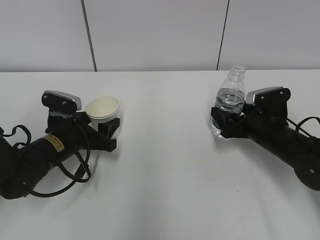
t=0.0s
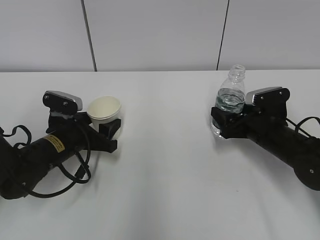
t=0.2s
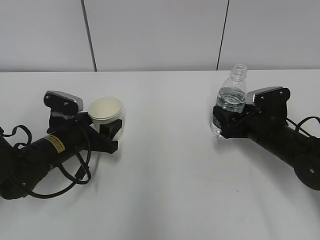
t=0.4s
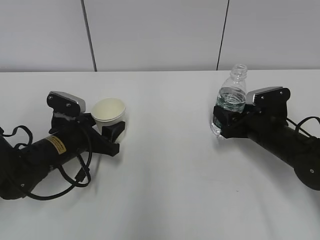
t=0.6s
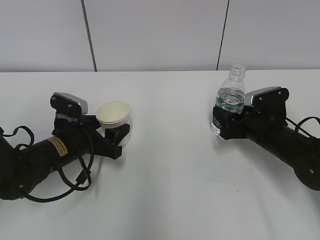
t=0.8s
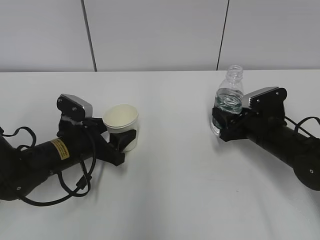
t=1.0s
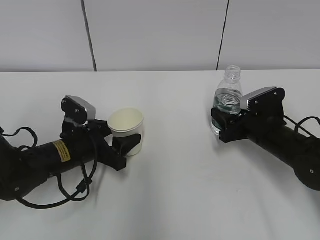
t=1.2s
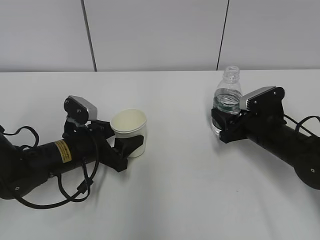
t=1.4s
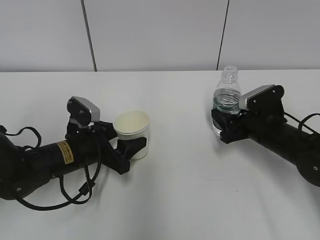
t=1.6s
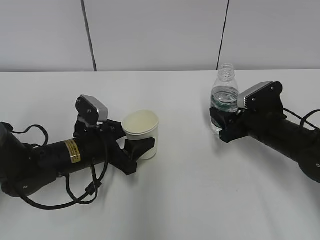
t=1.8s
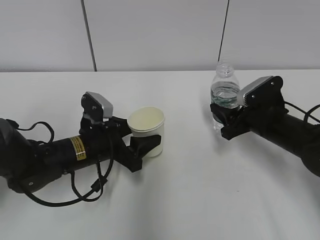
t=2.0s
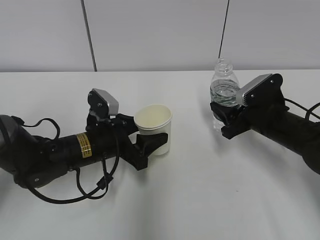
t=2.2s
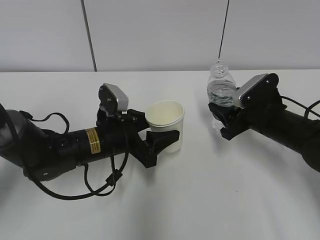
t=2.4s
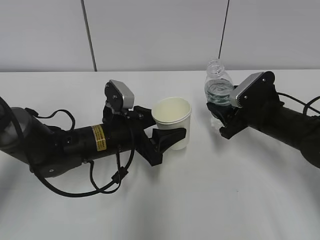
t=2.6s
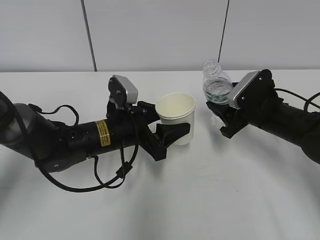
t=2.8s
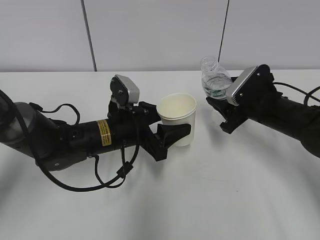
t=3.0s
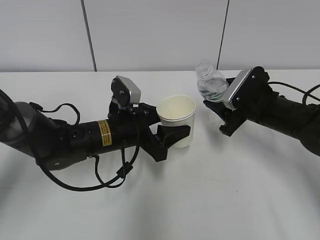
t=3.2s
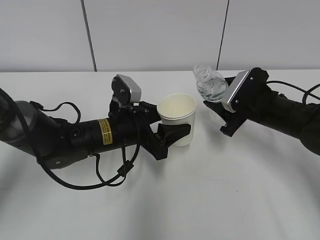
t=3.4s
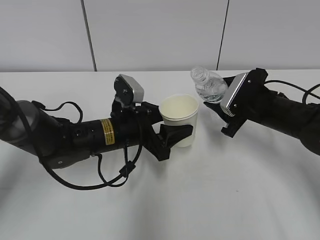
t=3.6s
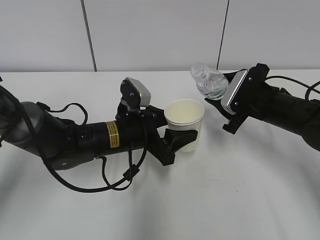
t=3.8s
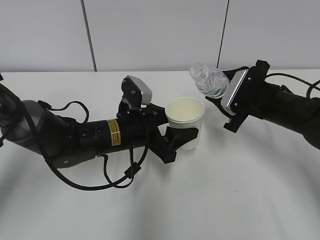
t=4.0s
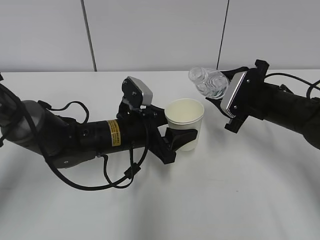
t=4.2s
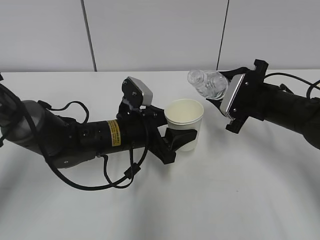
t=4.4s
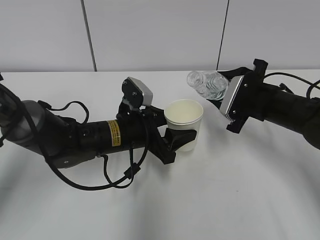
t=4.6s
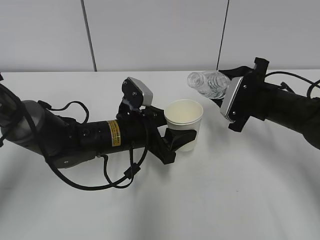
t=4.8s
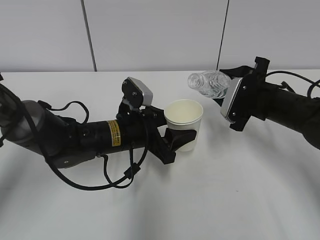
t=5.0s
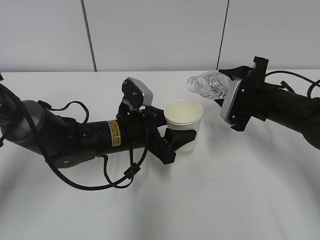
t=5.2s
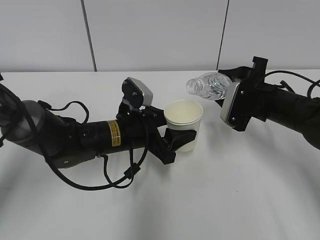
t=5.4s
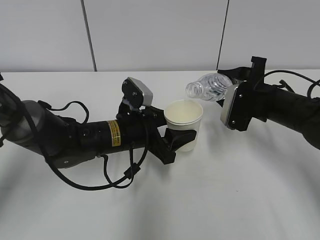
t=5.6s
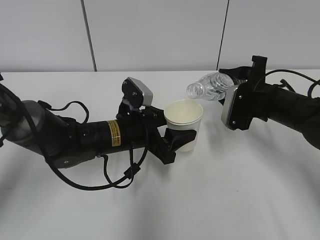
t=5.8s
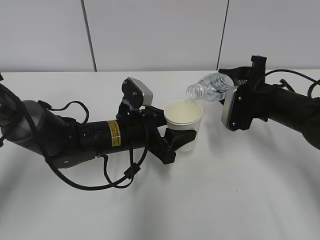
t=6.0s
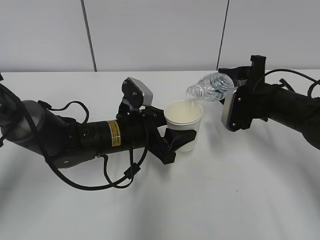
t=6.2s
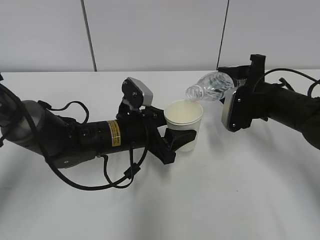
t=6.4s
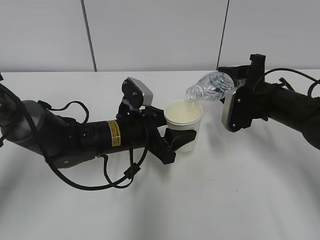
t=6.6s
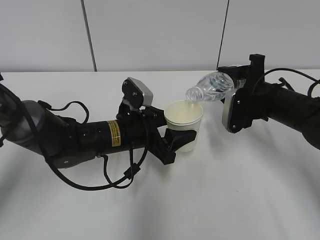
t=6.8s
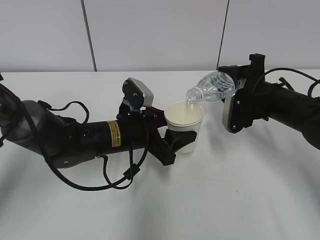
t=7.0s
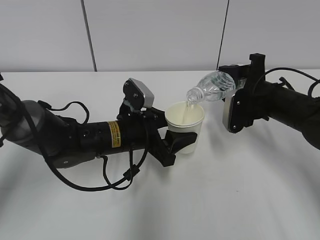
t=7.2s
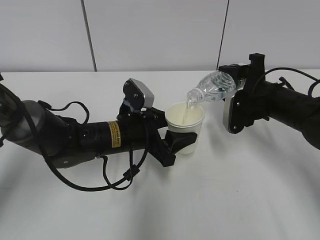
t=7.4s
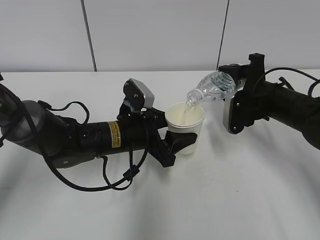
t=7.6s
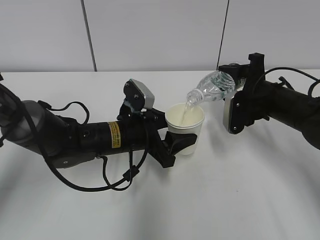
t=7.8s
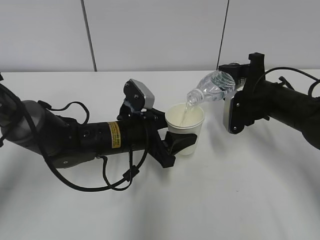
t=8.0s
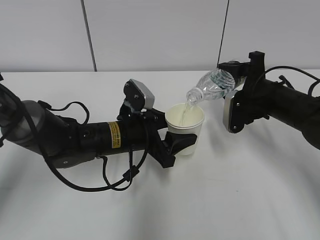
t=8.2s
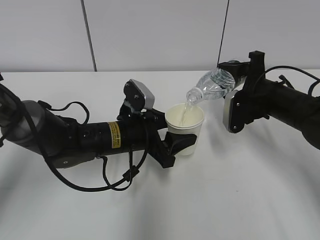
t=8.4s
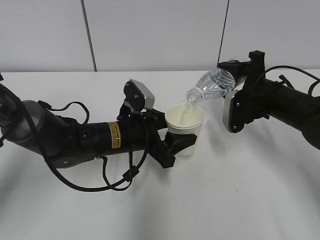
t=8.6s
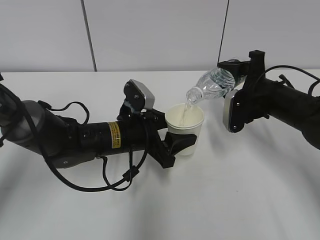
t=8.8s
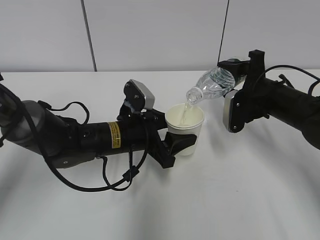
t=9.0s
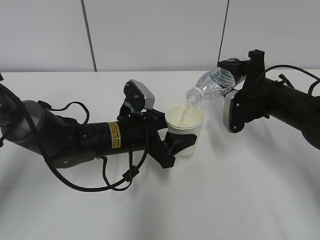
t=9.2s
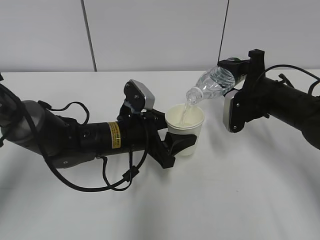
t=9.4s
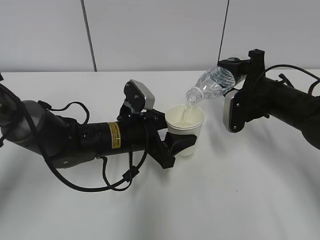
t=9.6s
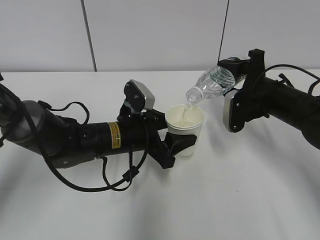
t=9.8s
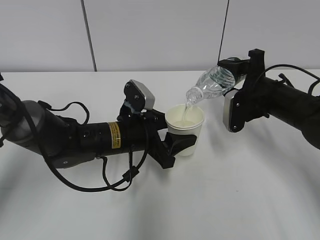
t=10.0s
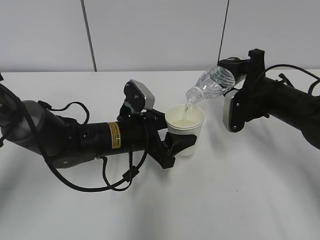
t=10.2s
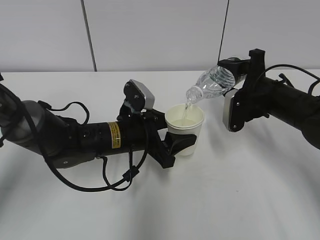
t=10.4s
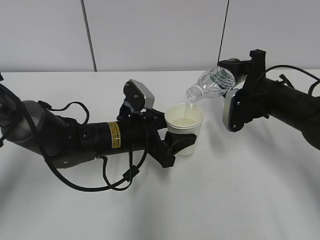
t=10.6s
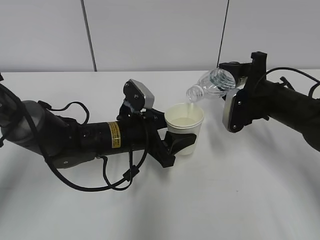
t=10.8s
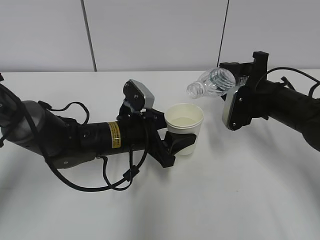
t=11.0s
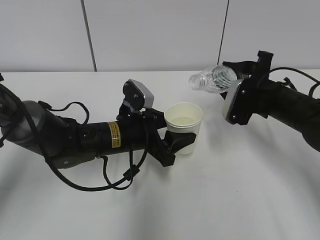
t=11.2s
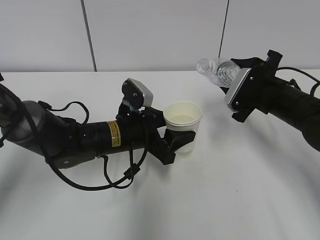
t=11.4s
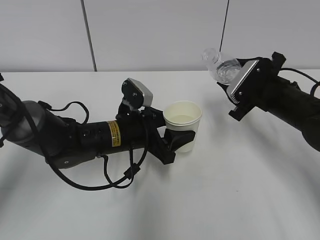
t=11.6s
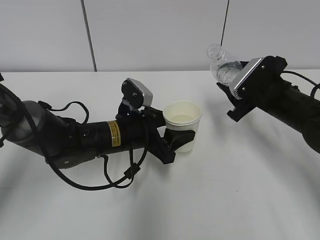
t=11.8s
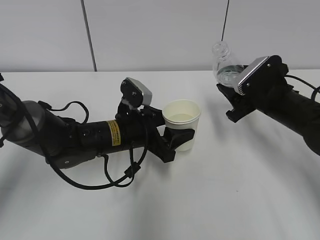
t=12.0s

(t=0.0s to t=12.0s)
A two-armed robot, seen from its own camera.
Step, t=0.0s - t=4.0s: Lift the paper cup with the left hand.
Step, t=4.2s - t=7.4s: Fill water with the left hand.
Step, t=4.2s - t=7.4s: Pour water with the right hand.
Step, t=7.6s - t=9.0s: Collect water with the right hand.
Step, t=9.2s - t=11.4s: Place the paper cup with the left hand.
t=0.0s - t=1.6s: The right gripper closes up.
t=1.6s - t=3.0s: The left gripper heads to the right, covering approximately 5 cm.
t=6.0s - t=7.6s: There are only small adjustments of the grippers.
t=7.6s - t=9.0s: Neither gripper changes place.
t=9.0s - t=10.4s: Both grippers stay about where they are.

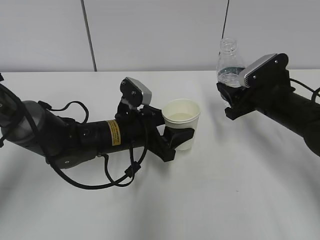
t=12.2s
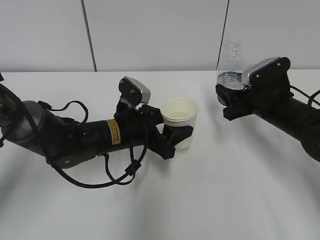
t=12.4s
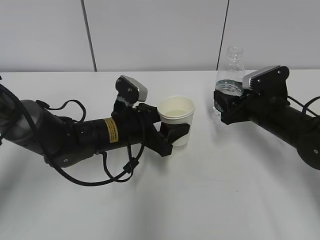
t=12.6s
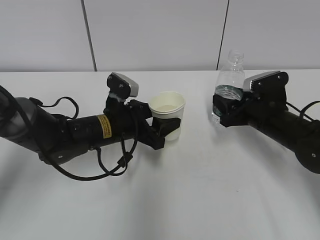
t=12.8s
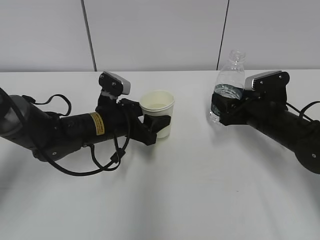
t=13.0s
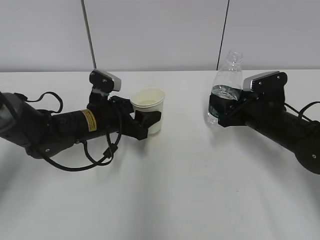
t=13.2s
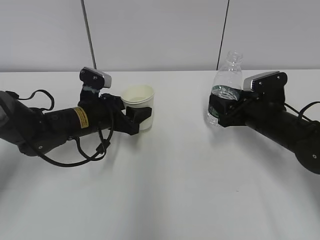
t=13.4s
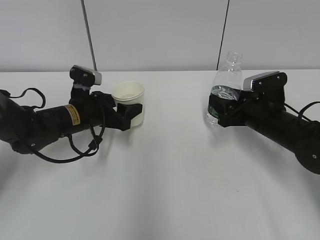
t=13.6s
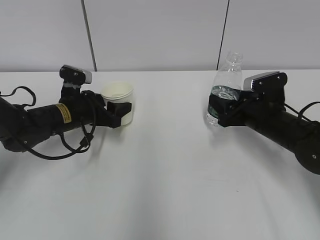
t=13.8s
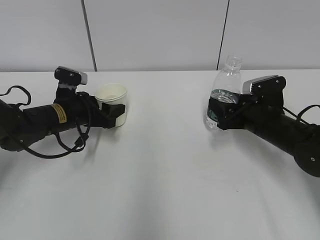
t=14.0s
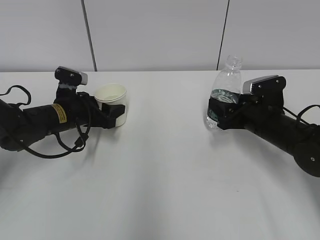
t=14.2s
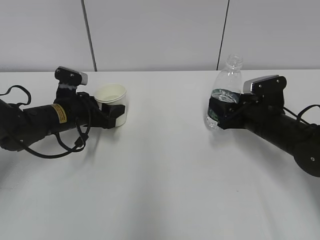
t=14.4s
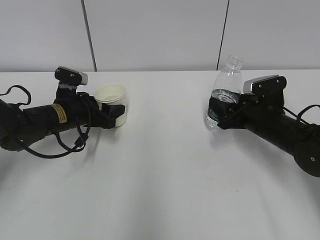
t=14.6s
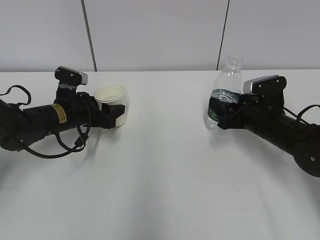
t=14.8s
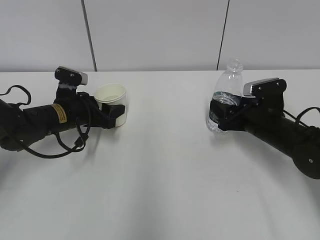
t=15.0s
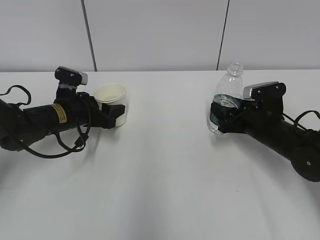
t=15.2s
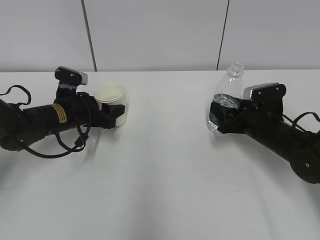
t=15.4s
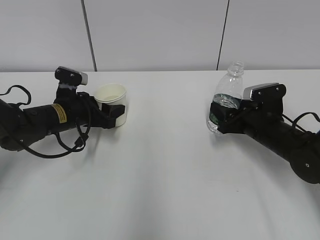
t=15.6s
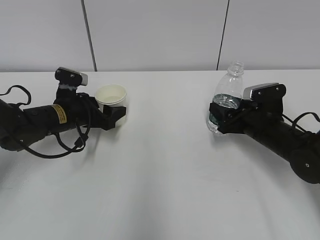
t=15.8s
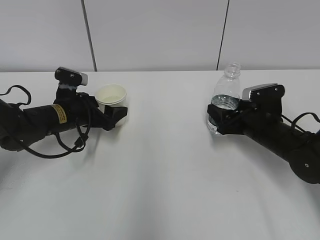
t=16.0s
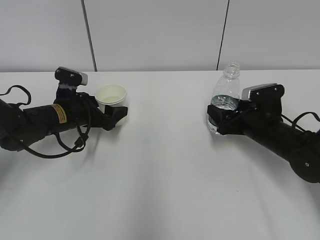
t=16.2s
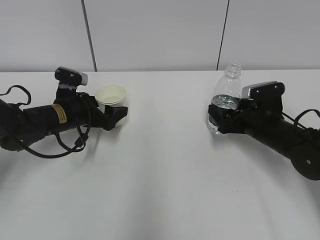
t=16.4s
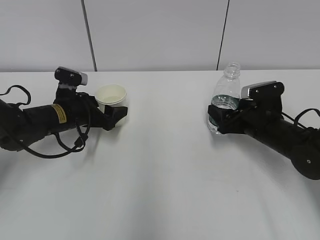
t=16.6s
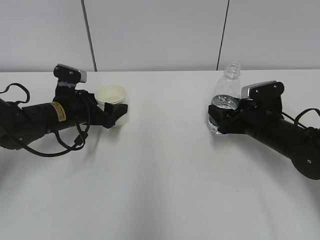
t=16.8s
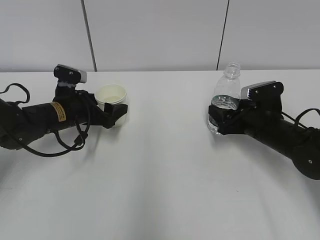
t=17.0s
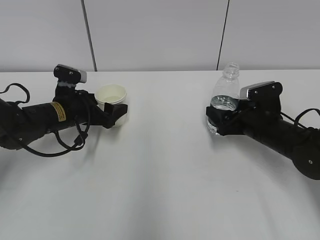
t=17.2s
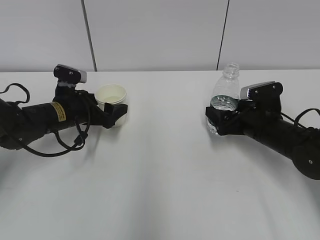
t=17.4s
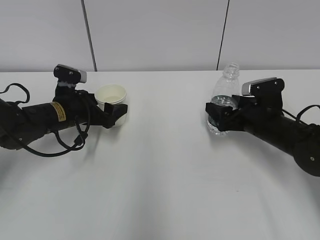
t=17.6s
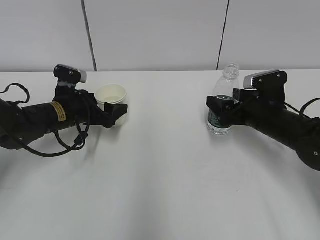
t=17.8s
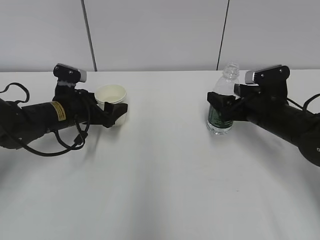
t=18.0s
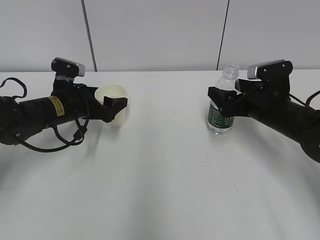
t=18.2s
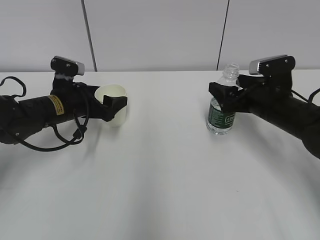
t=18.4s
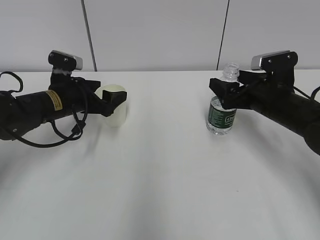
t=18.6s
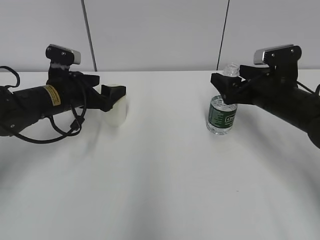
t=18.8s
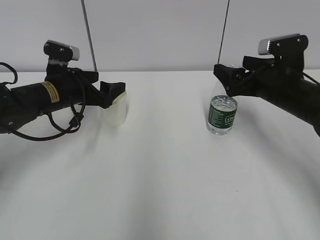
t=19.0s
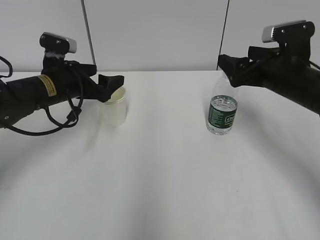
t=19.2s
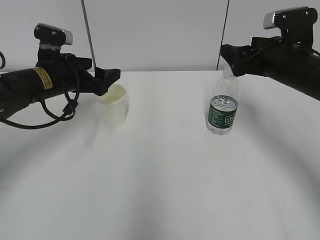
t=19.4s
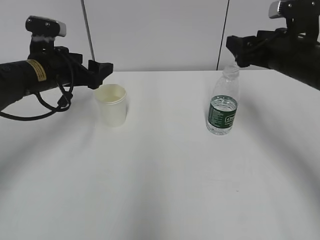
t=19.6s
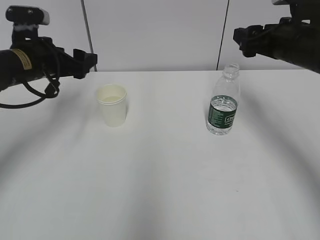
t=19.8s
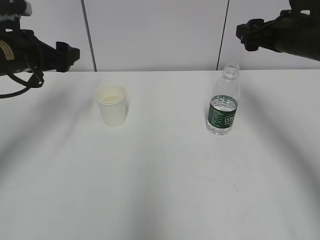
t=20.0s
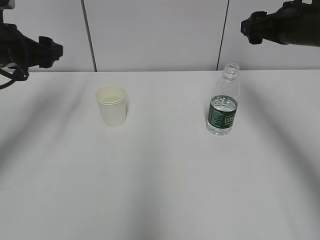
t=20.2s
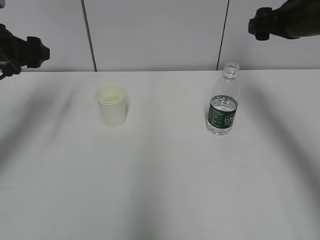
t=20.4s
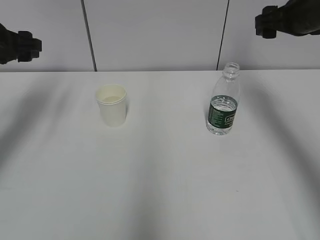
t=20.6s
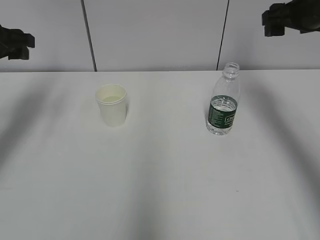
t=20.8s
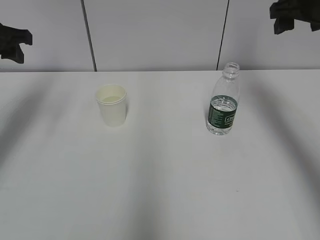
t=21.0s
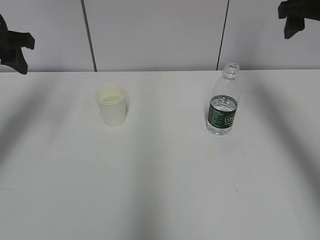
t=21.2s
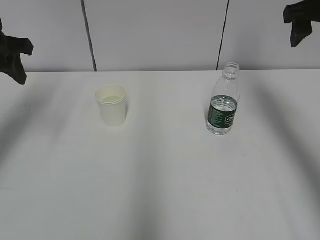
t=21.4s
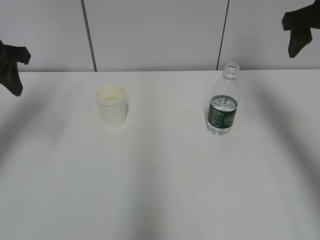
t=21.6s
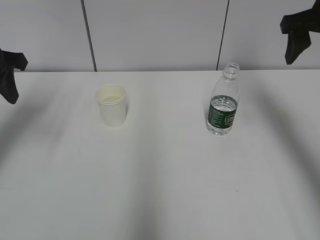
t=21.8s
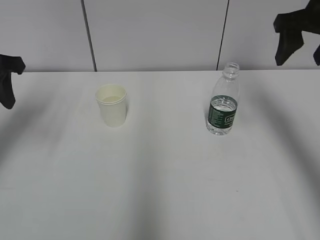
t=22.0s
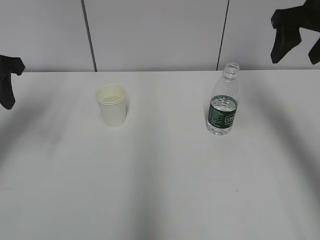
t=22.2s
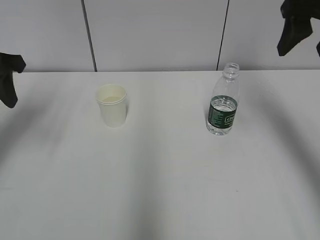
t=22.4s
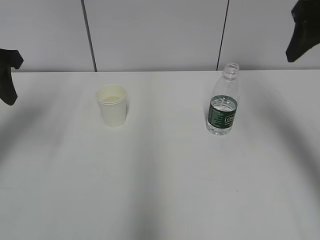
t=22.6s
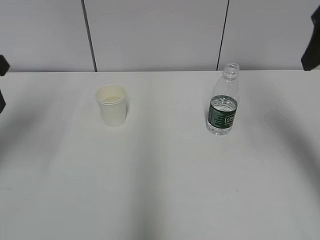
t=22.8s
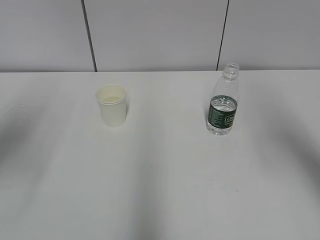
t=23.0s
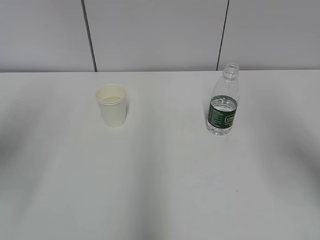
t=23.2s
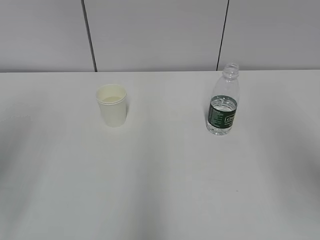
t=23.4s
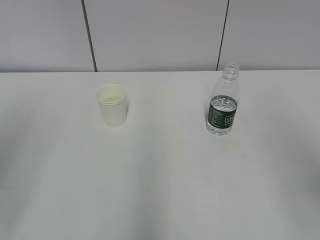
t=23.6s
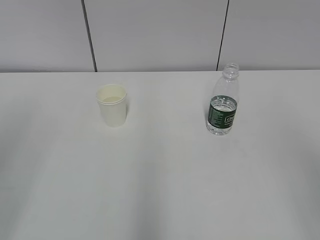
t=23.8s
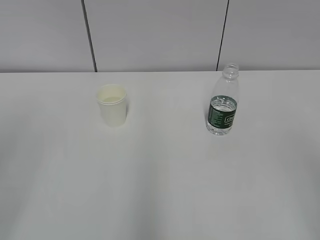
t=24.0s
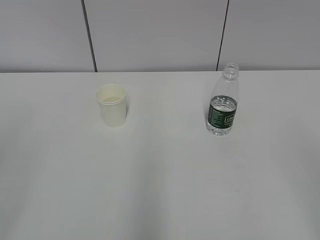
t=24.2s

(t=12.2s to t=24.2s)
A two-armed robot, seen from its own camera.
Step, t=12.2s - t=12.8s: Place the water bottle with the right hand.
t=12.2s - t=13.8s: The left gripper heads to the left and forward, covering about 15 cm.
t=13.8s - t=15.2s: The grippers move only a little.
t=15.2s - t=16.6s: The right gripper opens up.
t=16.6s - t=18.2s: The grippers move only a little.
t=18.2s - t=19.8s: The two grippers go some 10 cm upward. The right gripper closes.
t=19.8s - t=21.2s: The right gripper heads upward, covering about 10 cm. Meanwhile the left gripper moves upward and to the left, some 10 cm, and closes.
t=21.2s - t=22.6s: The right gripper is displaced backward by about 10 cm.
t=22.6s - t=24.2s: The two grippers go about 30 cm backward.
